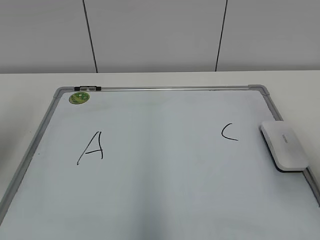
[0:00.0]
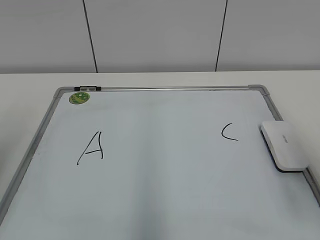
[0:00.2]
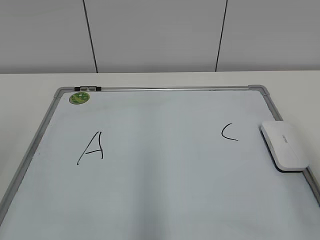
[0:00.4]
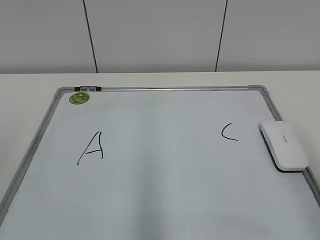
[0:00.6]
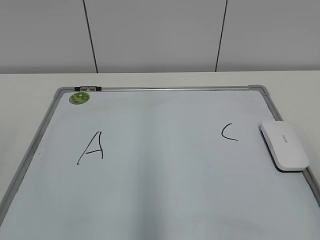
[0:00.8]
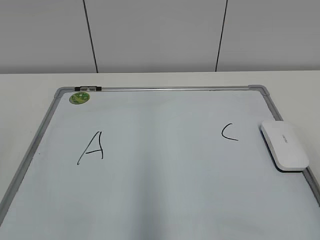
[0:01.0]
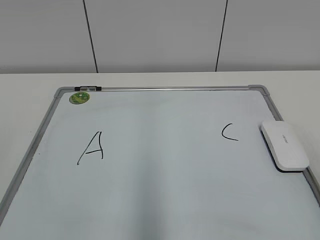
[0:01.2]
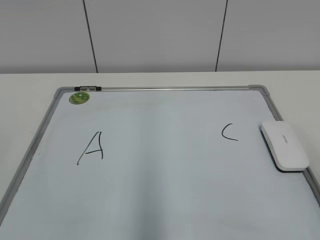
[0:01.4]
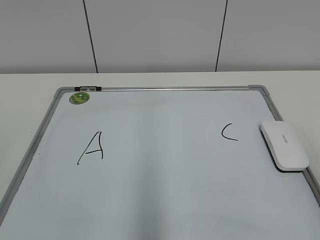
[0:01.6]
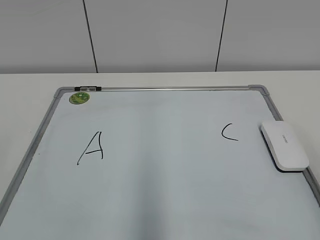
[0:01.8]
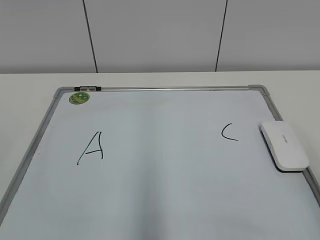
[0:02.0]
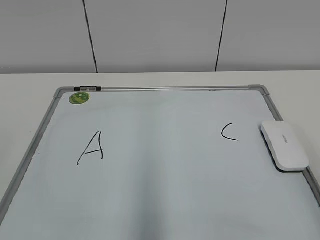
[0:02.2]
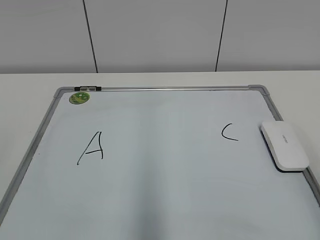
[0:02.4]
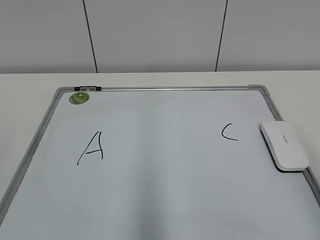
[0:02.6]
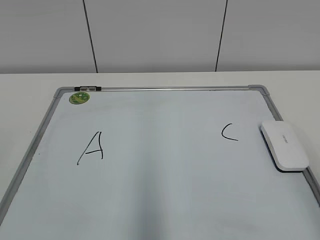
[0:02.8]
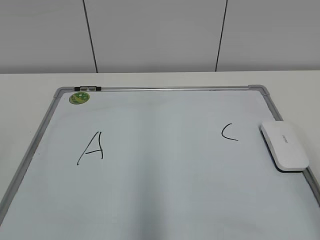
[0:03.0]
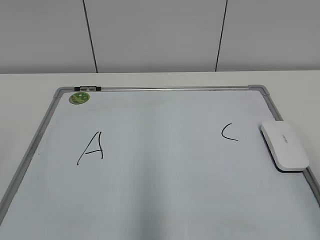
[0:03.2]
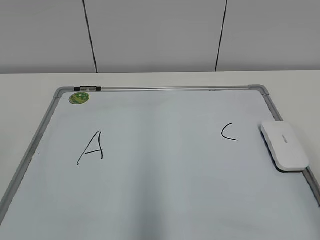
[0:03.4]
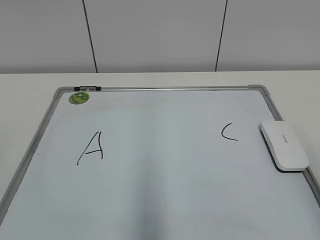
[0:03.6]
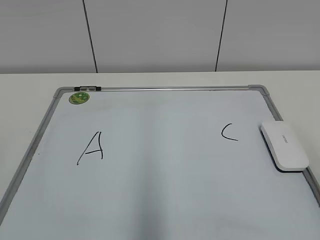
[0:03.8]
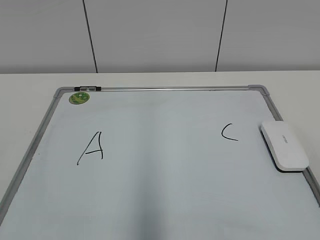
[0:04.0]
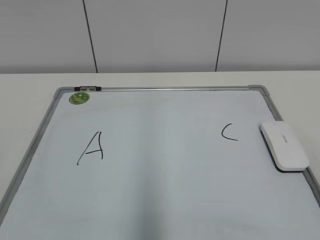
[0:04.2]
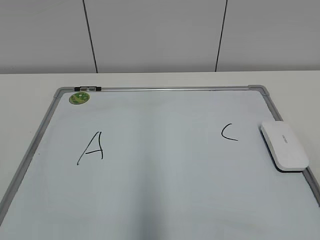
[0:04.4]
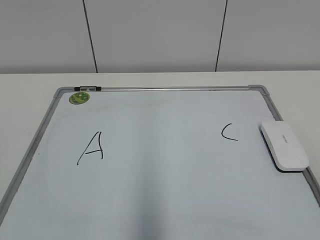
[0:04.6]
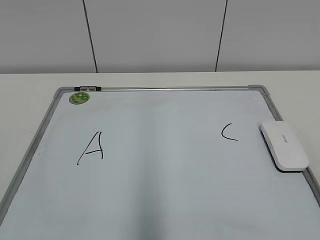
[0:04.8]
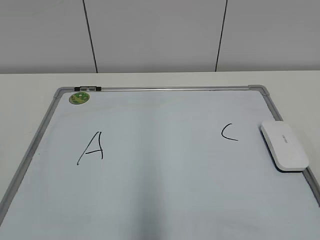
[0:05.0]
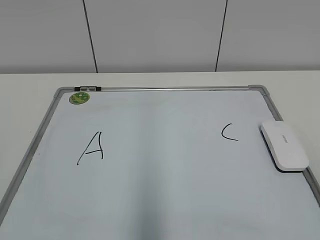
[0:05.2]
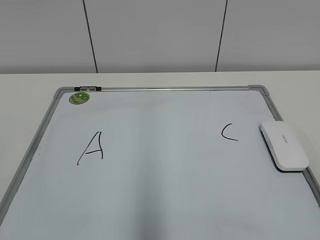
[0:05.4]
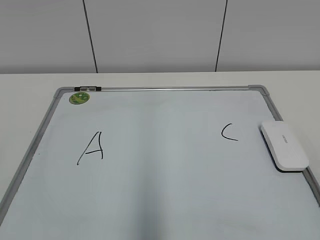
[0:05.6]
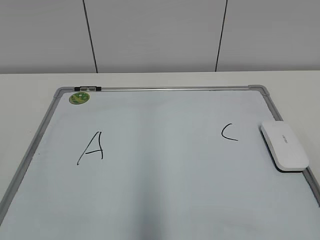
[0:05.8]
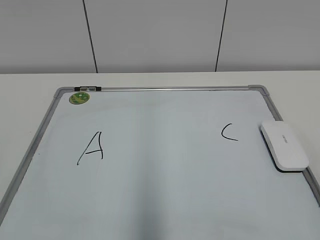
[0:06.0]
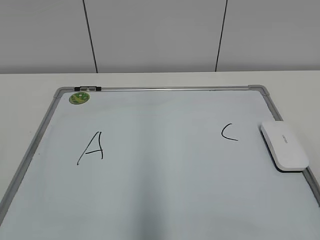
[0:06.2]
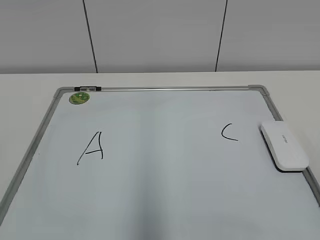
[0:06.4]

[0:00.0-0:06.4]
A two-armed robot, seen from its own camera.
Task of the whole recording: pick up the eraser on the blackboard and erase the letter "B".
0.0 to 1.6 s: Both grippers move backward, about 15 cm.
4.8 to 6.4 s: The two grippers keep their place.

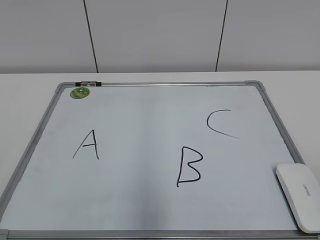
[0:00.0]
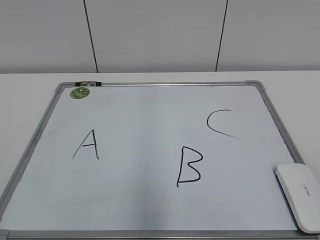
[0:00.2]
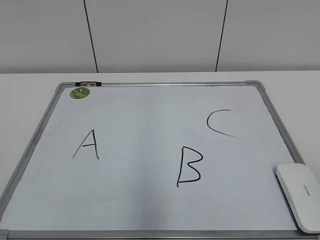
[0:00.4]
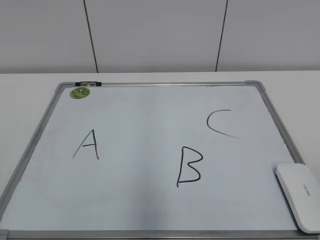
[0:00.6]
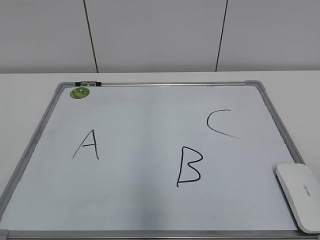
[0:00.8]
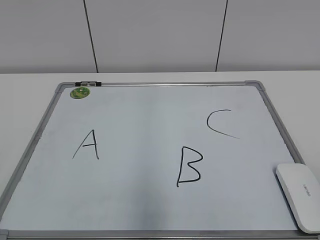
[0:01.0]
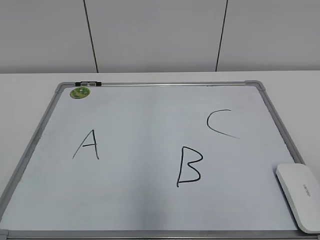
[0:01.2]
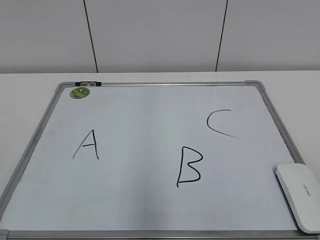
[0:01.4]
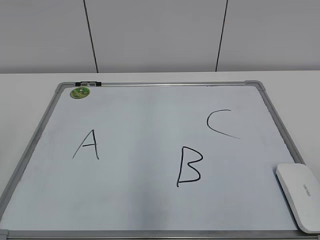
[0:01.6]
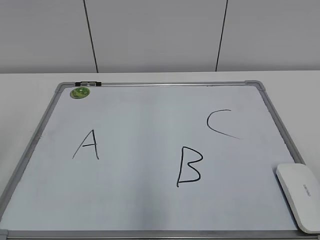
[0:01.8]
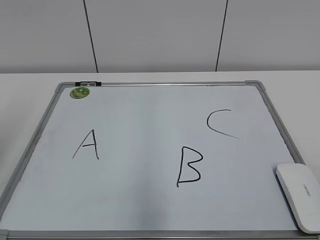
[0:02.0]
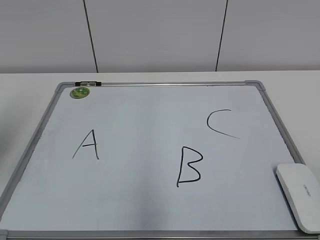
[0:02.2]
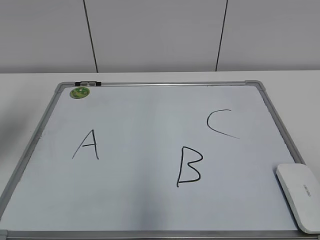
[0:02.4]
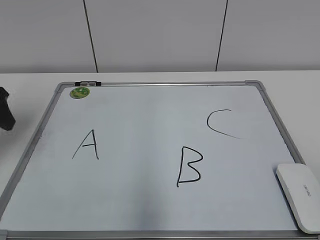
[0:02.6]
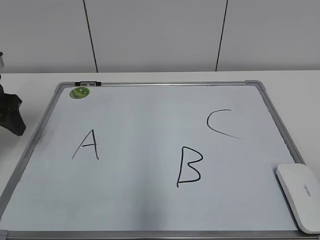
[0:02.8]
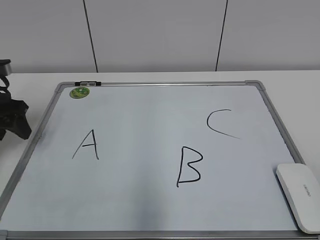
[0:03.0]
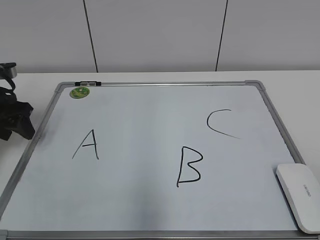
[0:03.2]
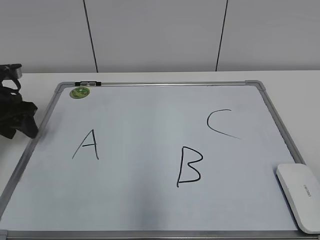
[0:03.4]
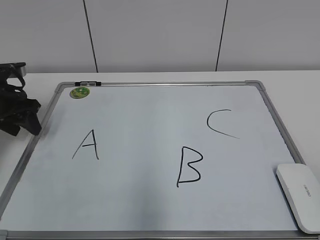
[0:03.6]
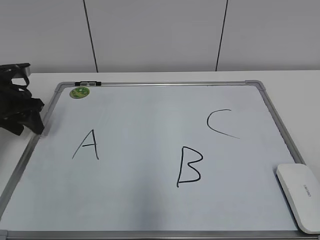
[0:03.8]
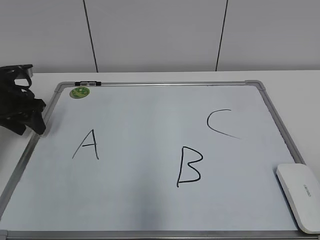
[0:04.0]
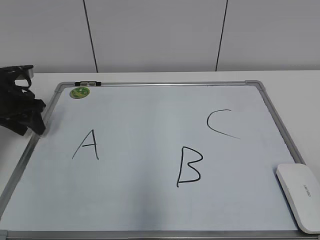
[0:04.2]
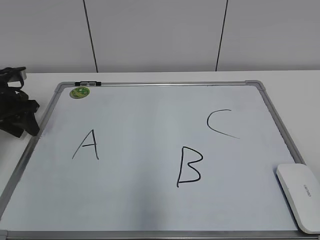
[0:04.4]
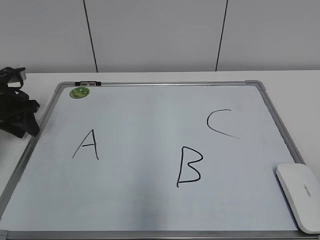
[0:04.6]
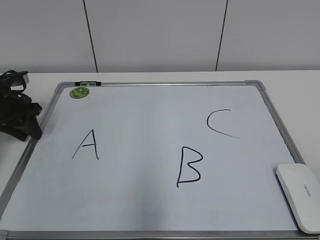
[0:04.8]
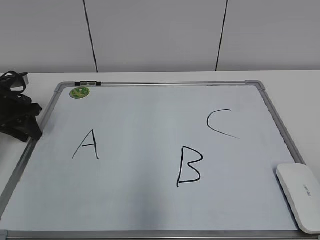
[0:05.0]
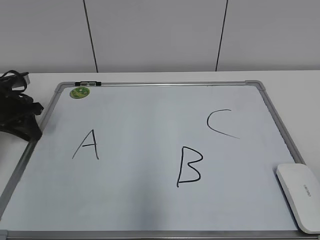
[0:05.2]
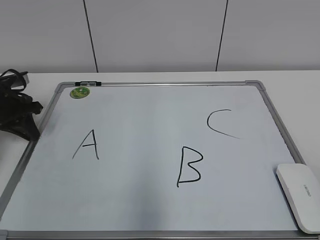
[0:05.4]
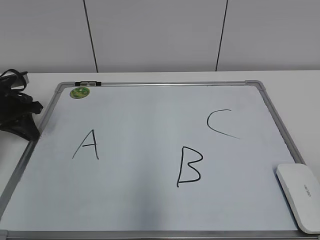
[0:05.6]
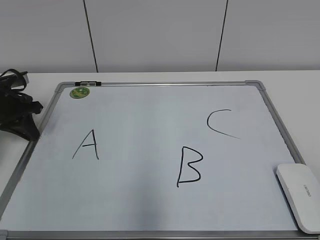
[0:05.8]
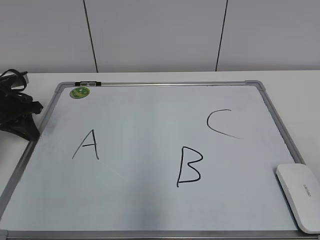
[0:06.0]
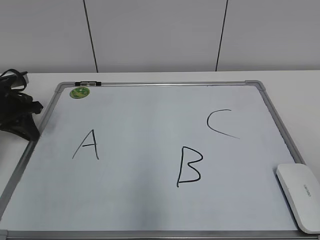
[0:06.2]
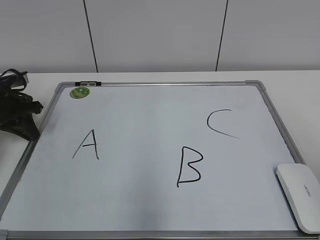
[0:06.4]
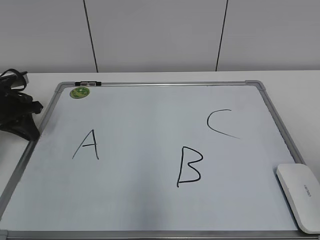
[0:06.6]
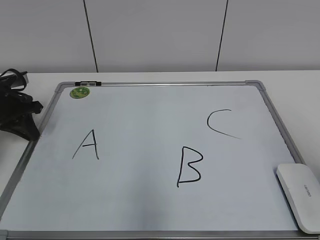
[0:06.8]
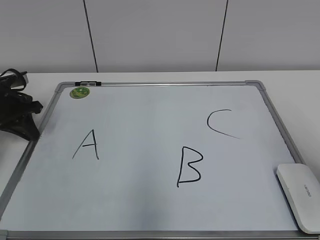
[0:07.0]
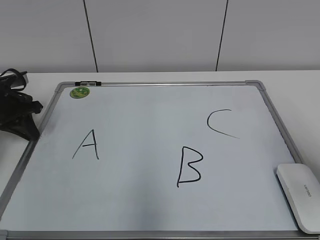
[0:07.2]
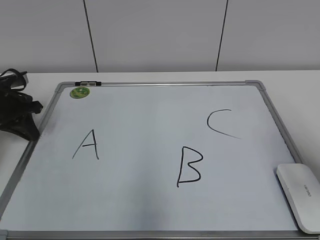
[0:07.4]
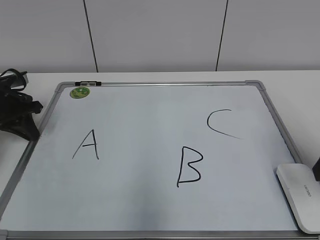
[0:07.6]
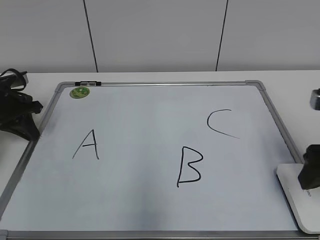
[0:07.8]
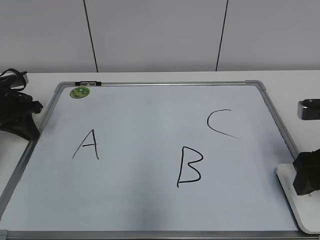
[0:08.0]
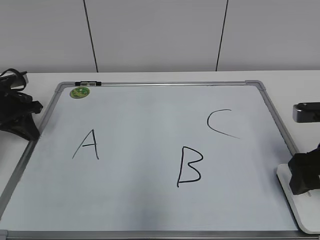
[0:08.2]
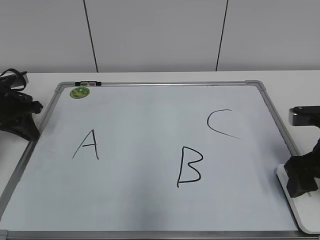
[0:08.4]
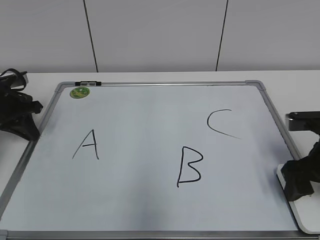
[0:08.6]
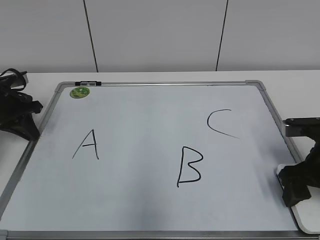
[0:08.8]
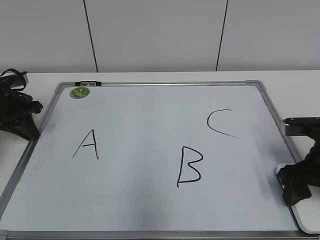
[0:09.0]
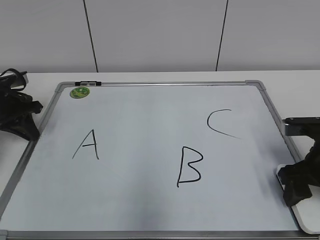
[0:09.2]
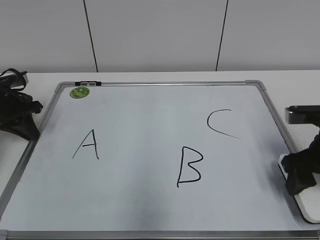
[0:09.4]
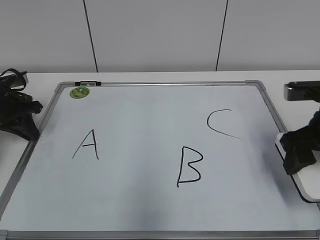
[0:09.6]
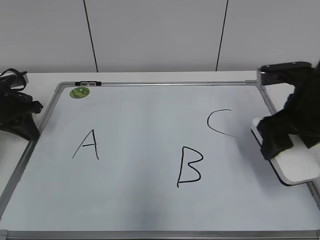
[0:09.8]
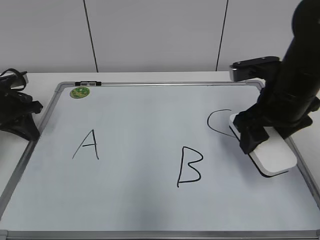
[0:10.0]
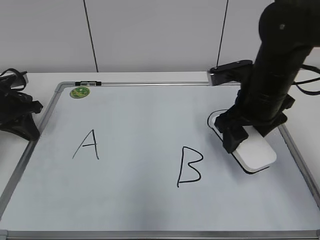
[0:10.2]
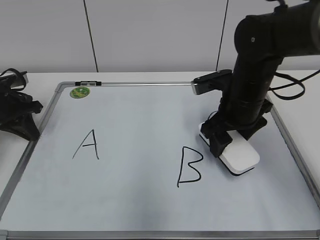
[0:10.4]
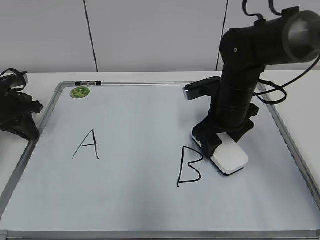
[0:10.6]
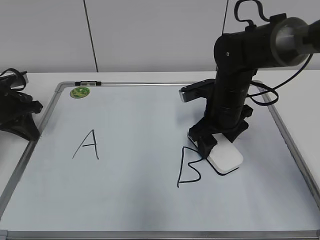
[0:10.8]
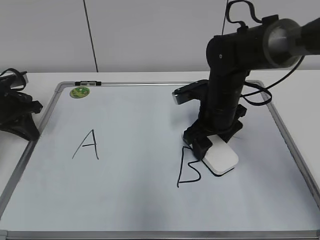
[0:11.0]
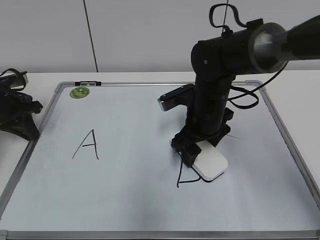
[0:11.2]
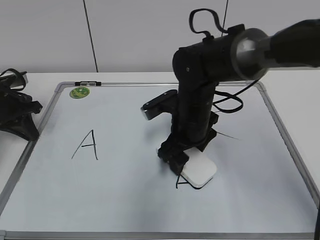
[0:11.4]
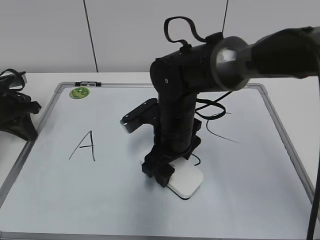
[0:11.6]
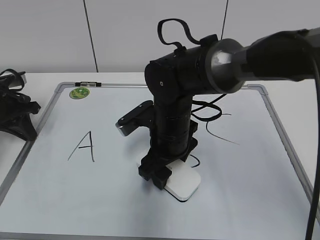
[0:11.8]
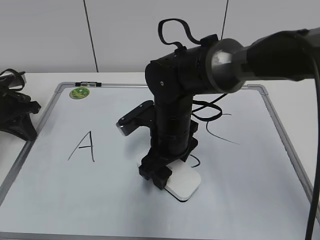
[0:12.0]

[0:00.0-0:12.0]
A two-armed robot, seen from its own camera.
Task of the whole recording: pick up the eraser on the blackboard and erase the letter "B".
Step, 0.0 to 5.2 s: Hold the drawing board steady with your left hand.
Step, 5.4 to 9.0 s: Grab the eraser with your right hand.
1.6 to 3.0 s: The left gripper shifts some 35 cm forward and downward.
3.0 to 4.4 s: The left gripper moves forward, roughly 5 cm.
4.4 to 6.0 s: The left gripper closes up.
6.0 to 7.6 s: The right gripper goes some 20 cm forward.
7.6 to 9.0 s: The right gripper goes roughly 10 cm downward.
9.0 to 10.4 s: The right gripper is displaced to the left and forward by roughly 15 cm.
10.4 to 12.0 s: The right gripper shifts about 10 cm to the left.

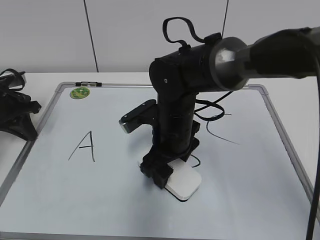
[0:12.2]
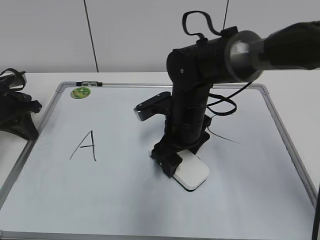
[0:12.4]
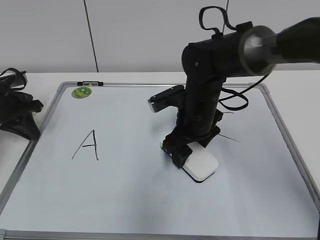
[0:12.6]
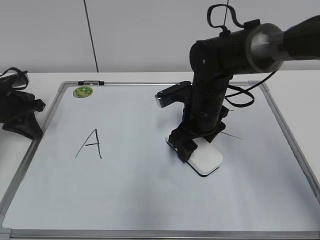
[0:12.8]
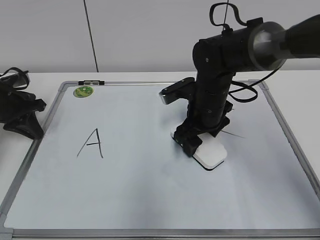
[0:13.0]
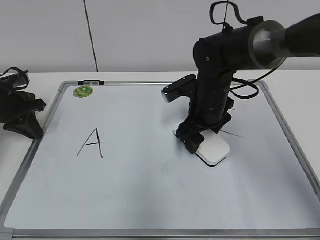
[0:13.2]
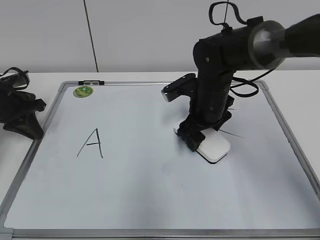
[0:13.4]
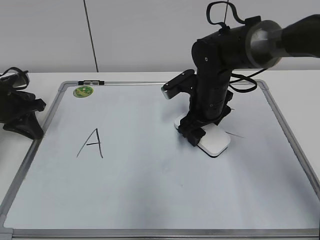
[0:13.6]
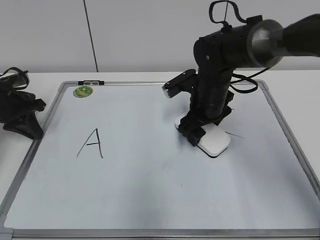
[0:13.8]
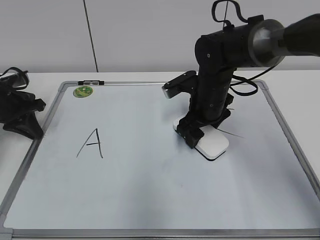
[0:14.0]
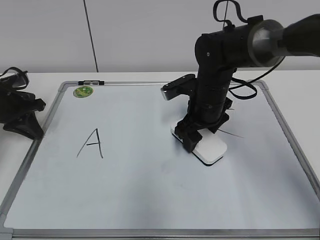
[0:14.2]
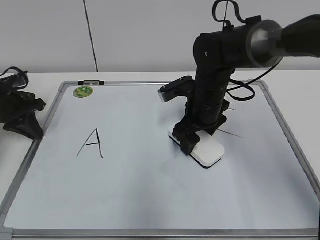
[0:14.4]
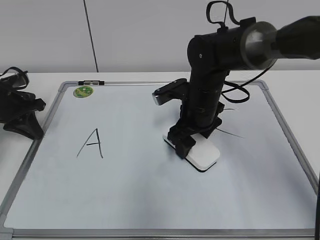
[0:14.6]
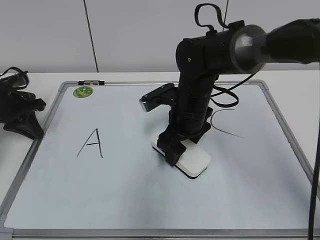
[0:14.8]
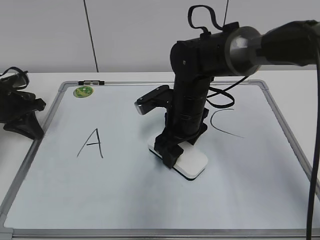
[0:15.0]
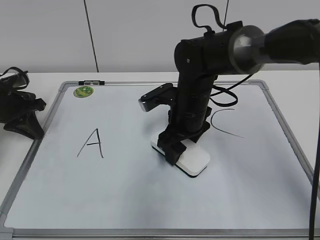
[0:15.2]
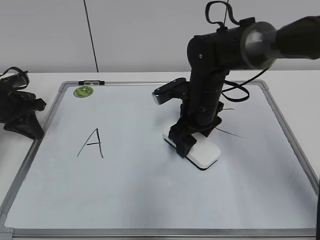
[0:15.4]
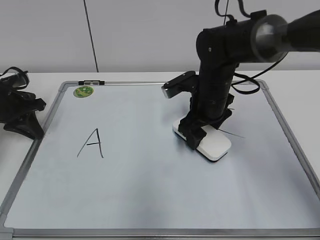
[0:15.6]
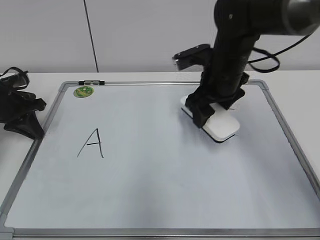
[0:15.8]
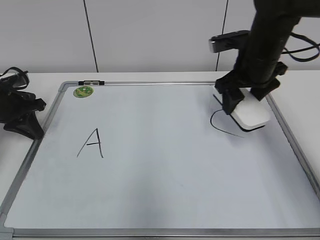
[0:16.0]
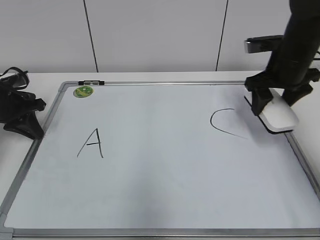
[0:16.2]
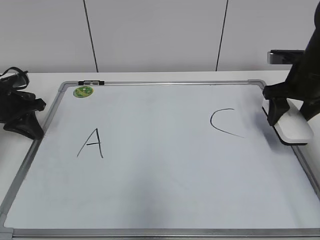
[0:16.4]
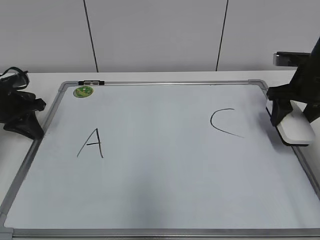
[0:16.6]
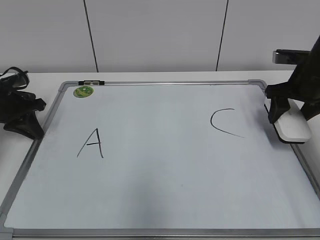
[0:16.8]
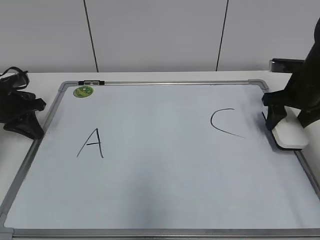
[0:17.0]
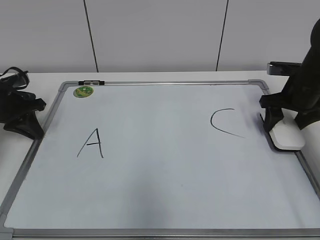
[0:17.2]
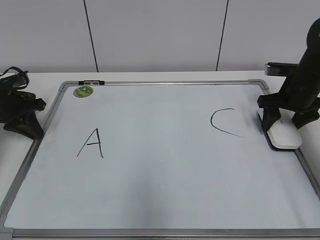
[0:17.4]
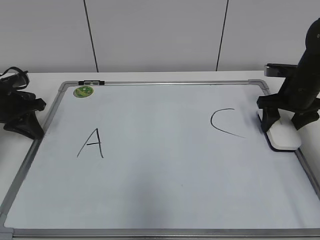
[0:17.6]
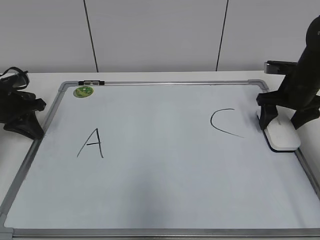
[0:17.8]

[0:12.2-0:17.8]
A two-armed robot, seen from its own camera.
Task of the whole recording: pick up the eraser on the blackboard and erase the letter "B".
Step, 12.2 to 15.2 s: Erase the letter B with your right hand.
Step, 15.4 to 17.6 s: Put down the eraser with your right hand.
12.2 to 13.6 s: The right gripper moves to the right and forward, approximately 10 cm.
13.6 to 15.0 s: The right gripper moves to the left, roughly 5 cm.
15.0 to 16.4 s: The right gripper heads to the right, covering approximately 20 cm.
16.4 to 17.8 s: The grippers make only small movements.
